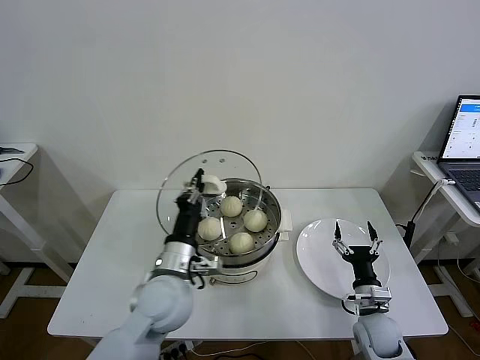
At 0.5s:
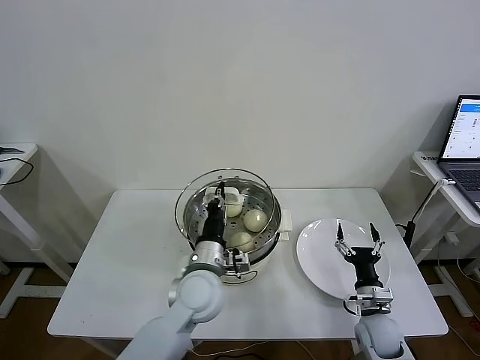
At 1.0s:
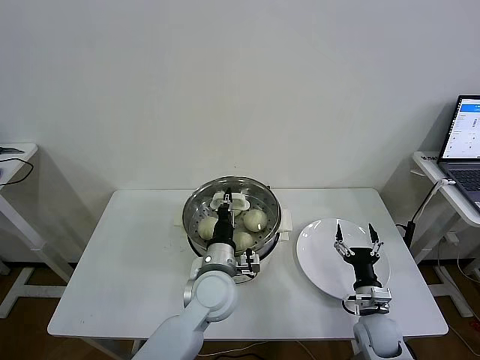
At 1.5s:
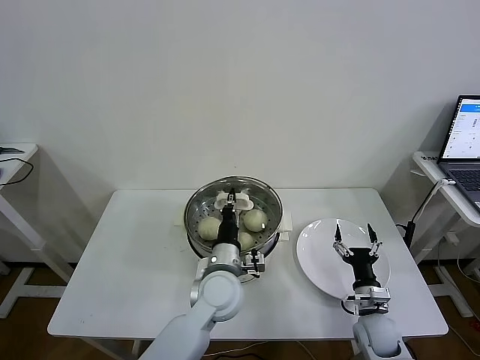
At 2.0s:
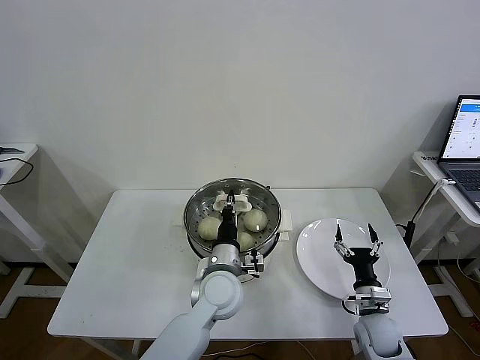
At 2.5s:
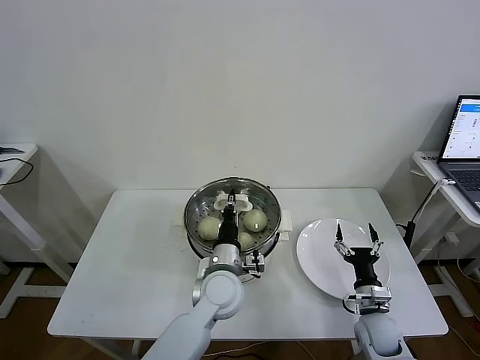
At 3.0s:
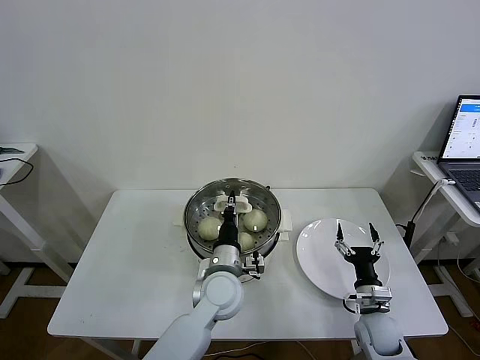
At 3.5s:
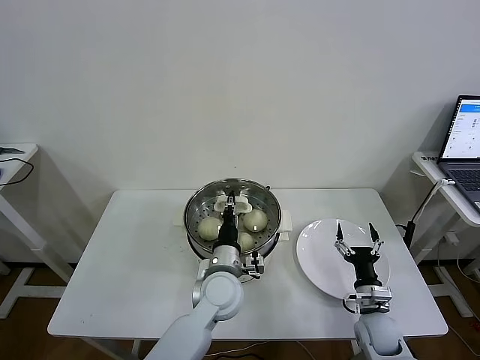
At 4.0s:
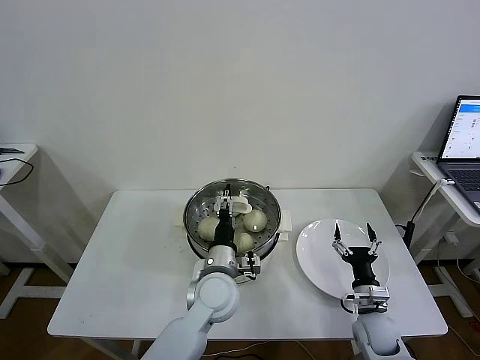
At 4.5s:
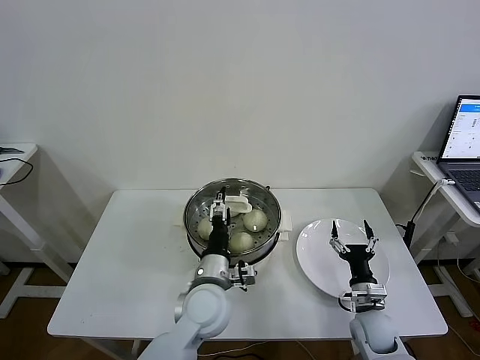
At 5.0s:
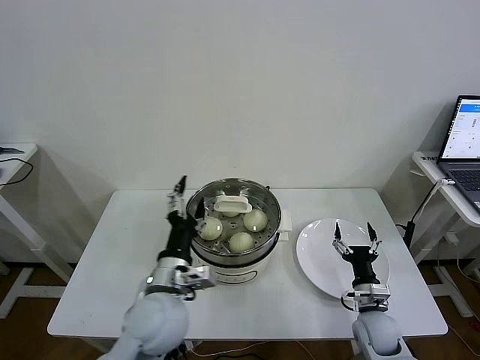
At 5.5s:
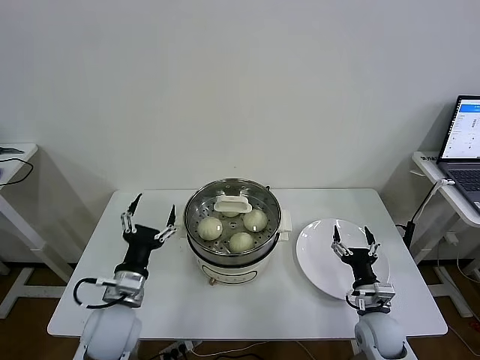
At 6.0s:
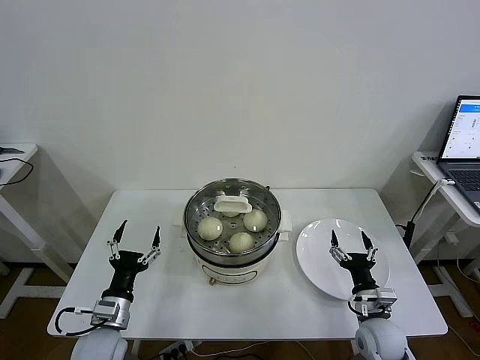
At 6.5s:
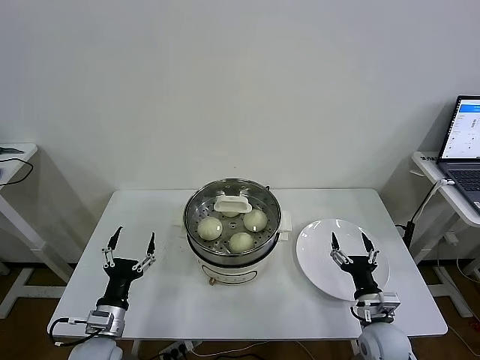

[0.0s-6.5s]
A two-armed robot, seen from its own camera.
Task of the whole recording: take steamed baozi put them in steamer then cover it.
Step, 0.0s to 3.5s: Place the pot lid on the steamer with left gripper.
0.0s to 2.0s: The left gripper shifts roughly 10 cm to the right and downward.
2.0s to 4.5s: The left gripper opens up.
4.5s to 6.5s: The left gripper moves to the left, approximately 25 cm.

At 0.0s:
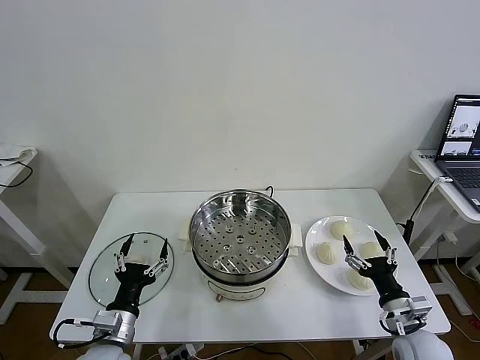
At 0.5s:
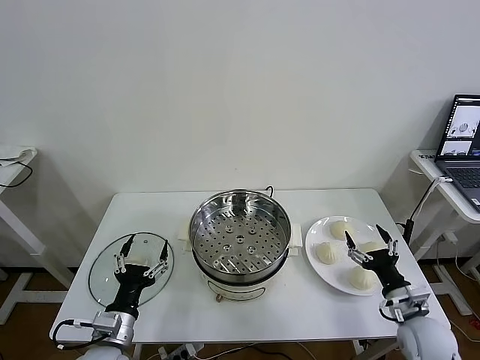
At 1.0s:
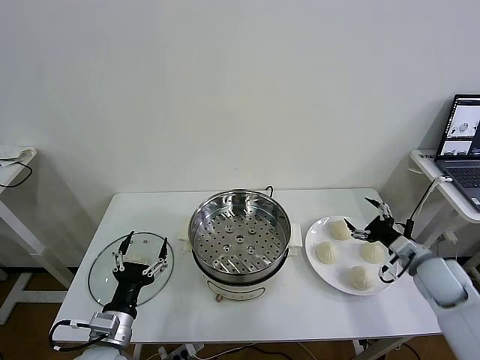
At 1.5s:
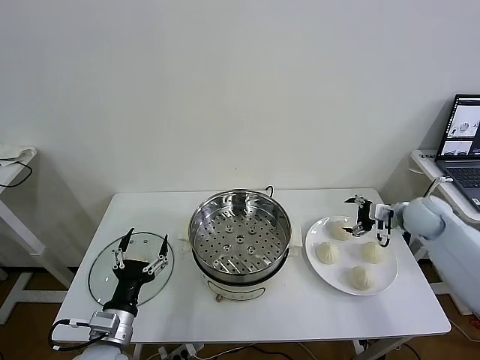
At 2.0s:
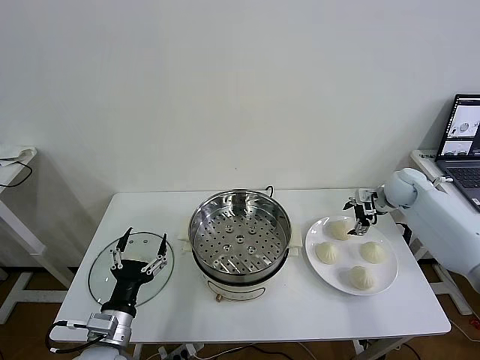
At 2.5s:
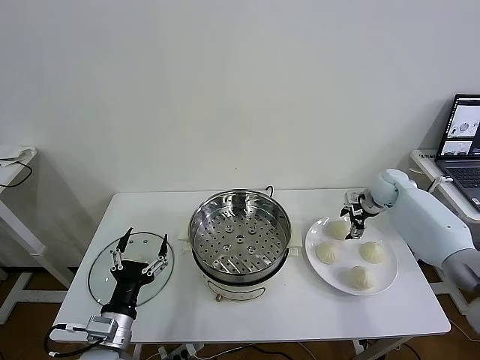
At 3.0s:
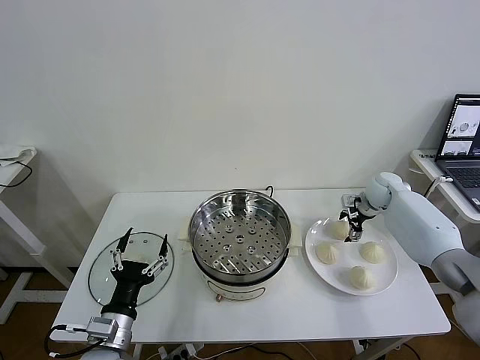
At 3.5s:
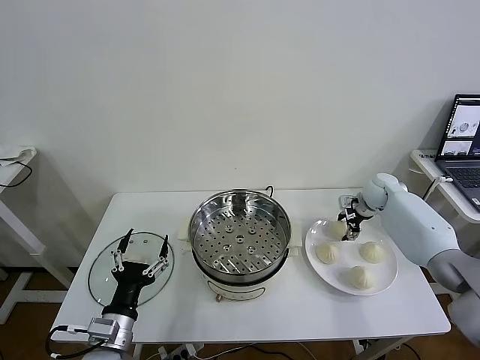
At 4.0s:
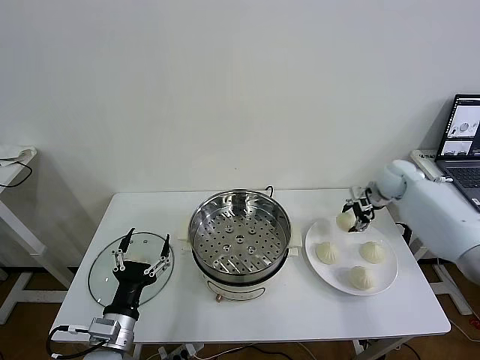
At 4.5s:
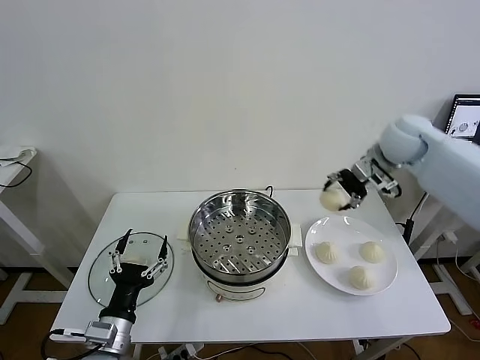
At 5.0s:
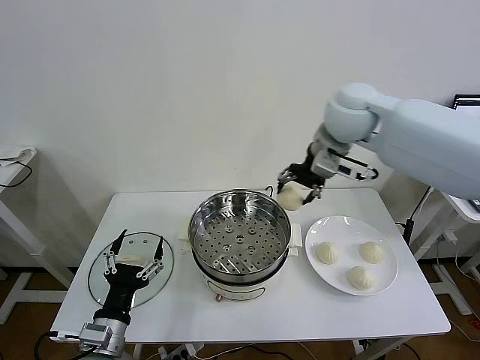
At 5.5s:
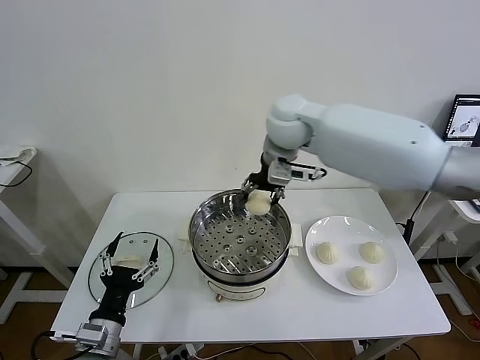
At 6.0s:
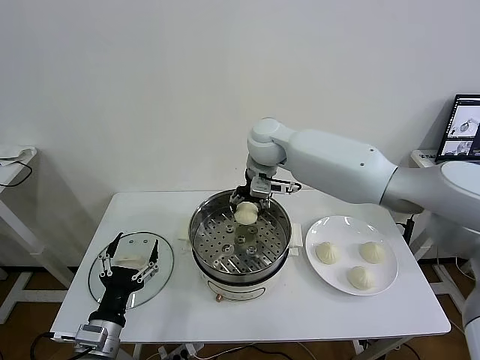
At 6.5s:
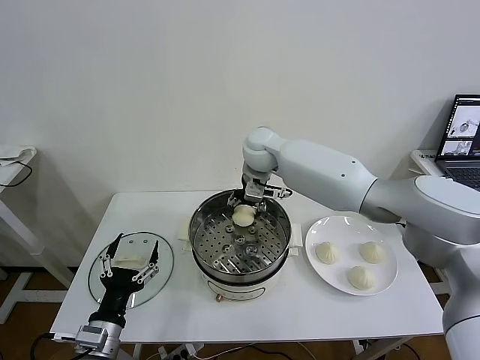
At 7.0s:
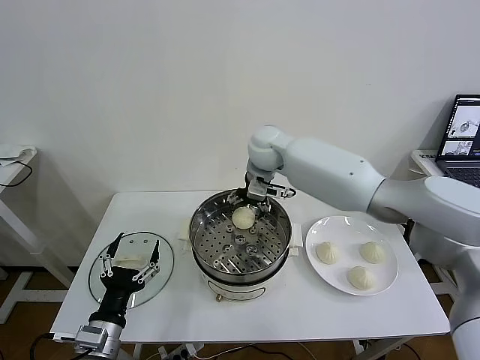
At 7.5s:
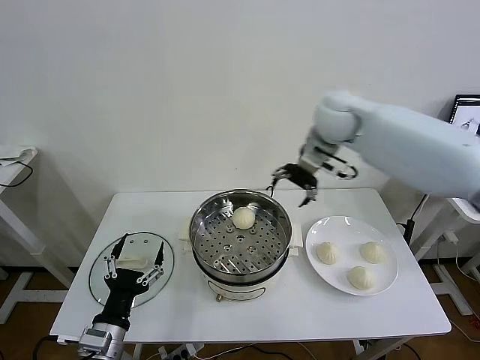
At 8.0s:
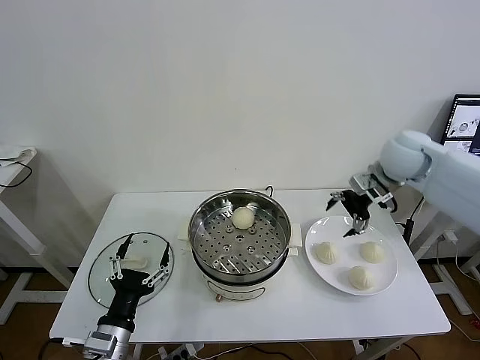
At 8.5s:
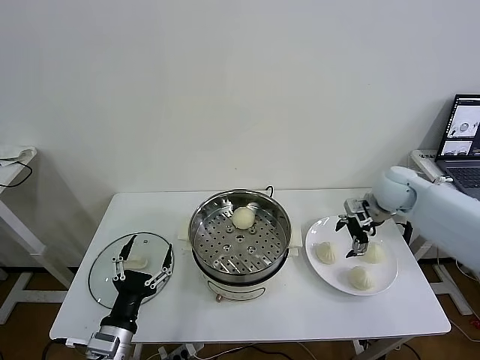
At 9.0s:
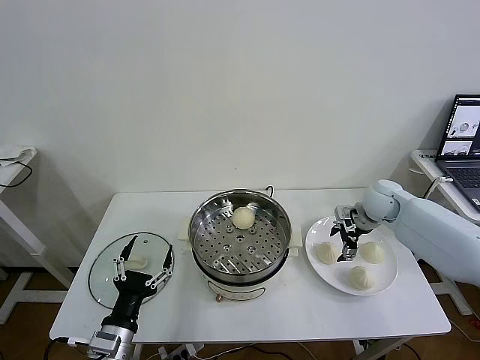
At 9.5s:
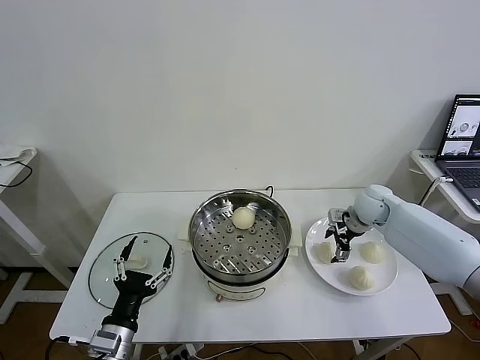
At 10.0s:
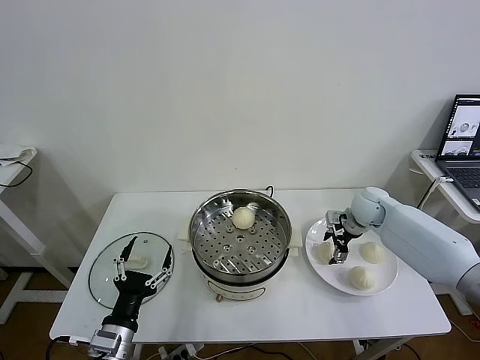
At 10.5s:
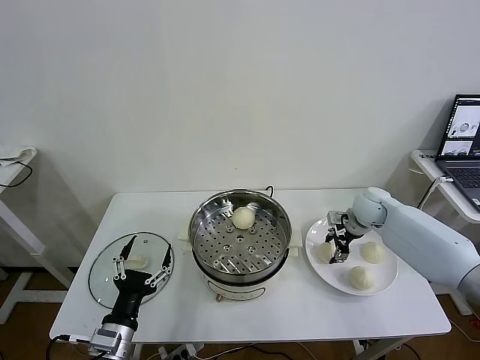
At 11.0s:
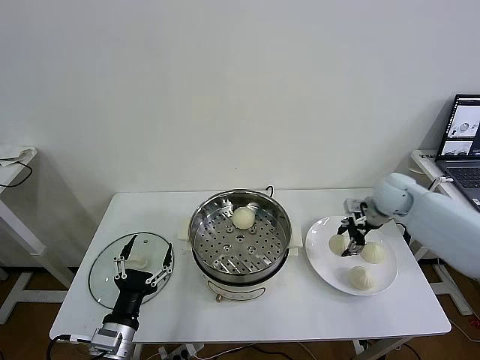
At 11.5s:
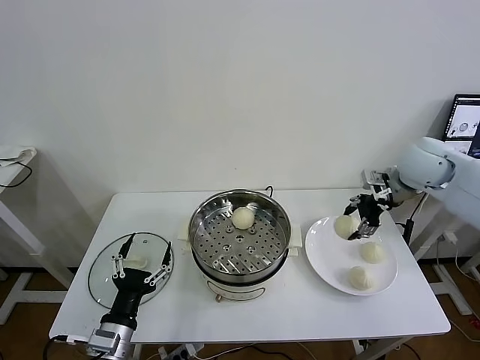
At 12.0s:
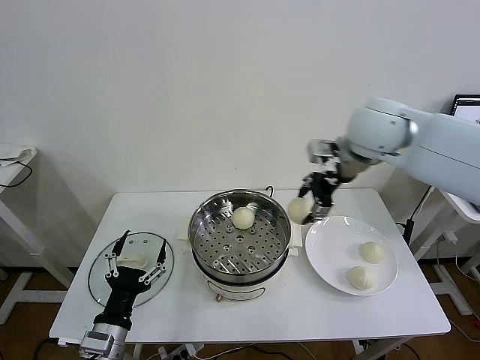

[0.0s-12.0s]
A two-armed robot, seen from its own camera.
Task of the whole recording: take steamed baozi put them in steamer then cover it.
Step, 0.0s to 3.0s: Grasp the baozi in the plate with right gripper.
Step, 3.5s to 6.5s: Place the baozi on the steamer with right gripper.
Step, 7.0s to 10.0s: Grasp the baozi in the plate with right gripper.
2.0s to 4.0s: The right gripper closes up.
4.0s to 6.0s: The right gripper goes about 35 cm to the left.
6.0s to 8.0s: The right gripper shifts about 30 cm to the right, and opens its fingers.
8.0s to 10.0s: The right gripper is displaced downward by approximately 15 cm, and closes.
10.0s to 12.0s: The right gripper shifts about 30 cm upward and to the left, and closes up.

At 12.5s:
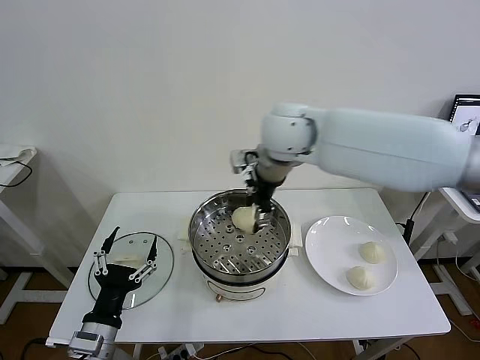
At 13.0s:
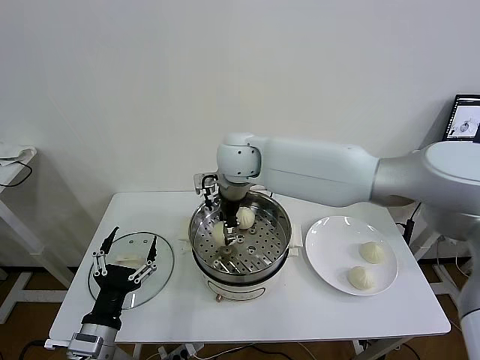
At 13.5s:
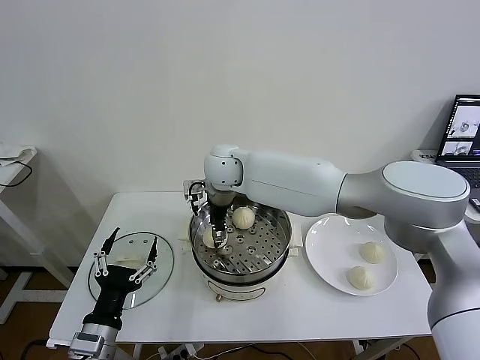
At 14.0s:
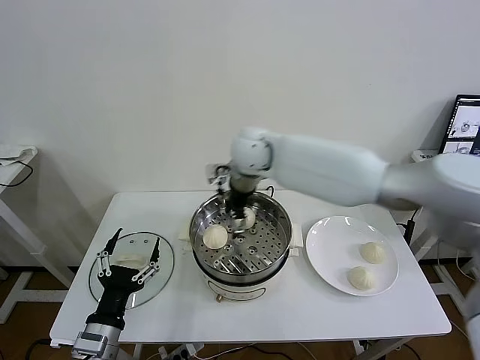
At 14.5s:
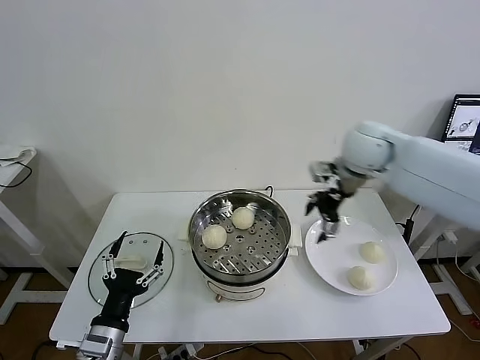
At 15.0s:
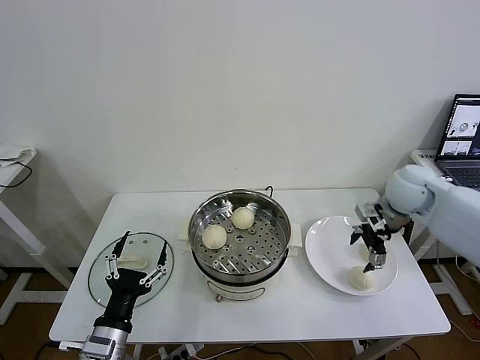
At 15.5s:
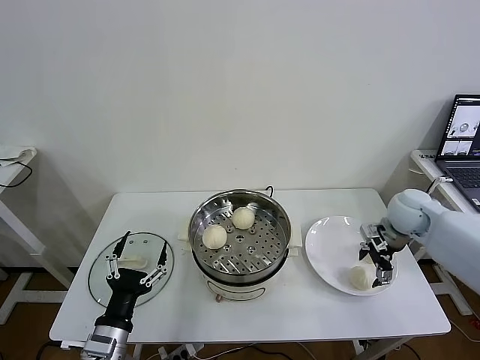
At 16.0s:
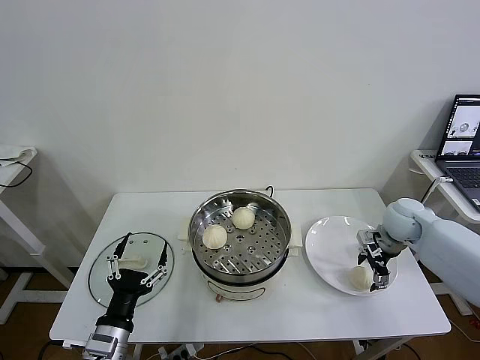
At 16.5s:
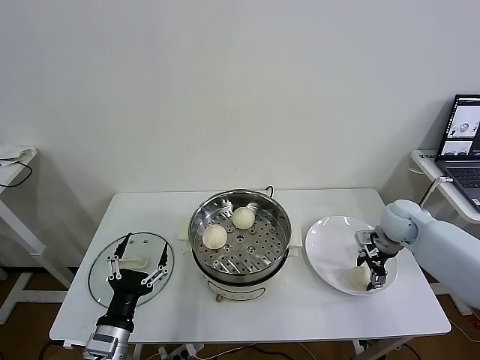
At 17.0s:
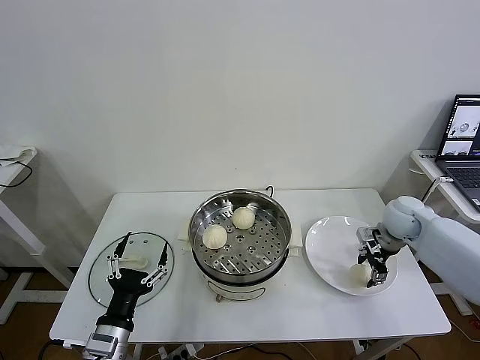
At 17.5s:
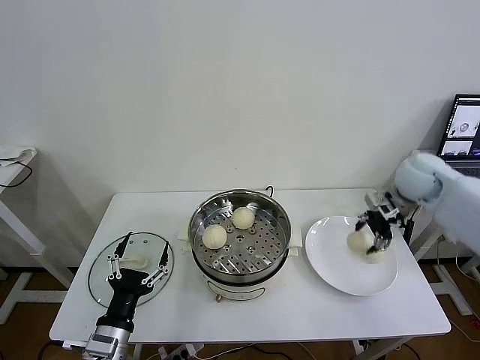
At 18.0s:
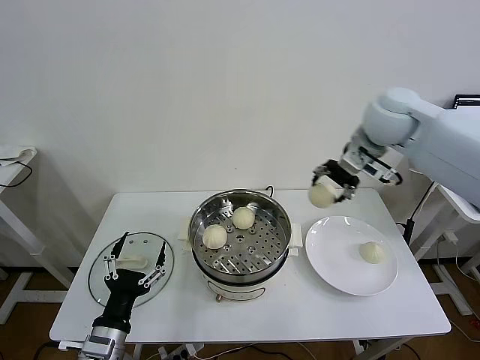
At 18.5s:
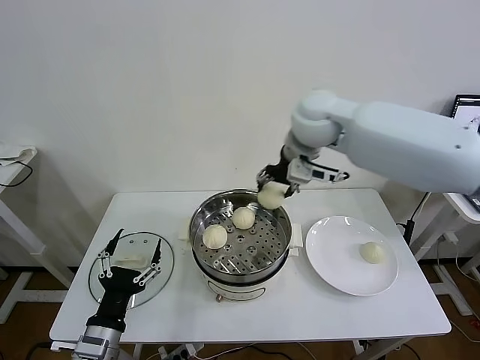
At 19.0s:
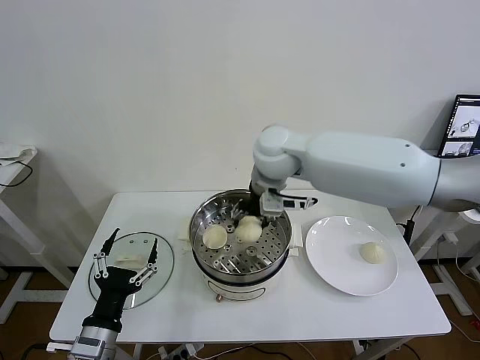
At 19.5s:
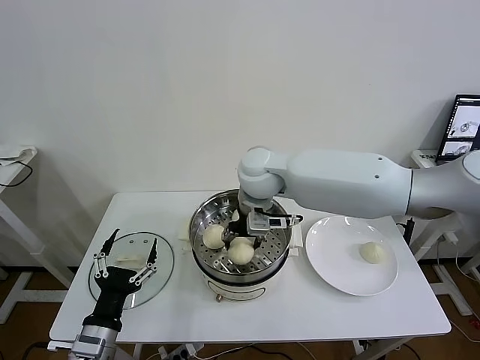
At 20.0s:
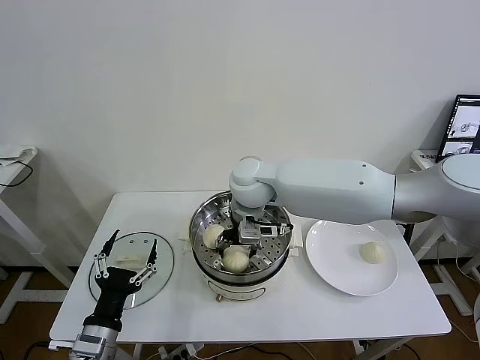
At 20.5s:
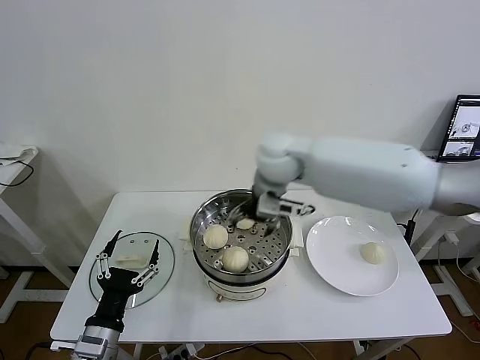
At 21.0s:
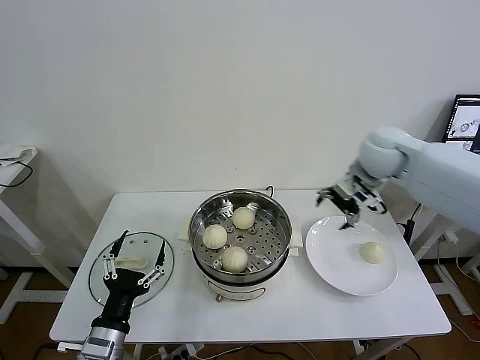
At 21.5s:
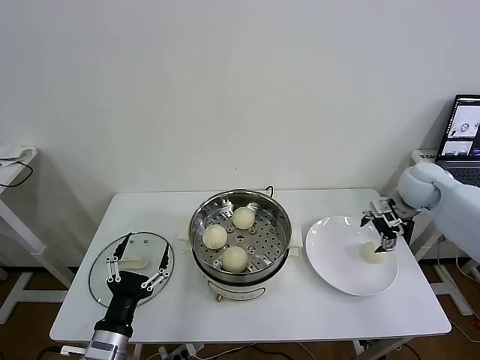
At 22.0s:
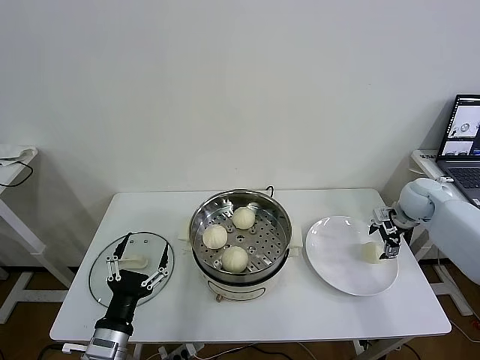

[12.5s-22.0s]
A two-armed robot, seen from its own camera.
Task of the whole recording: take steamed baozi put them in steamer then cover it.
Step, 14.0s to 16.5s: Grasp the baozi in the plate with right gripper.
Step, 17.0s to 20.0s: Place the baozi on the steamer with right gripper.
12.5s to 14.5s: The right gripper moves to the right, roughly 20 cm, and opens up.
14.5s to 16.5s: The right gripper shifts some 25 cm downward and to the right, and closes up.
16.5s to 18.0s: The right gripper moves upward and to the left, approximately 30 cm.
18.0s to 20.0s: The right gripper goes roughly 25 cm to the left and downward, and opens.
20.0s to 22.0s: The right gripper heads to the right, covering some 40 cm, and opens.
